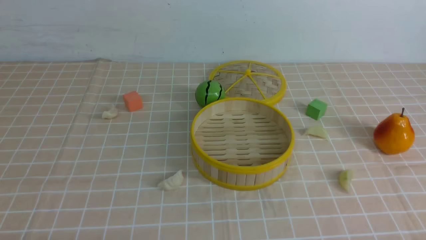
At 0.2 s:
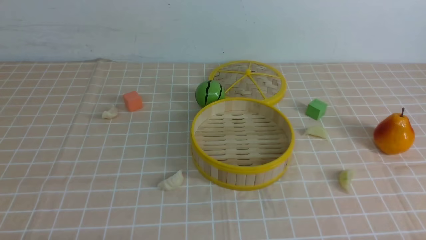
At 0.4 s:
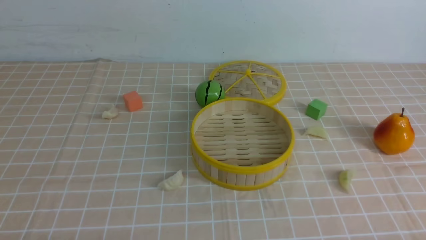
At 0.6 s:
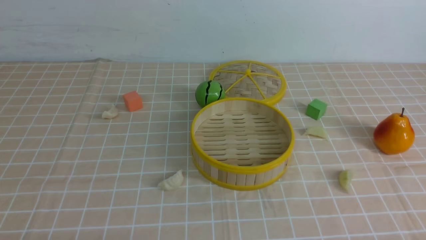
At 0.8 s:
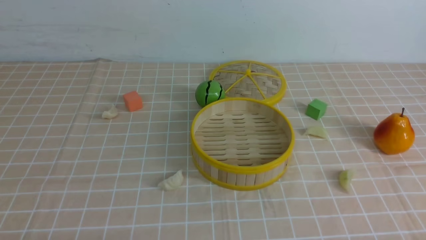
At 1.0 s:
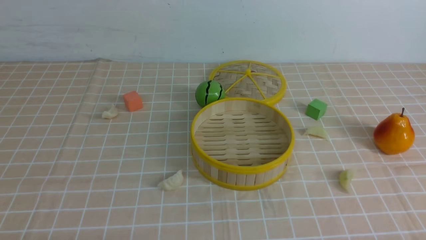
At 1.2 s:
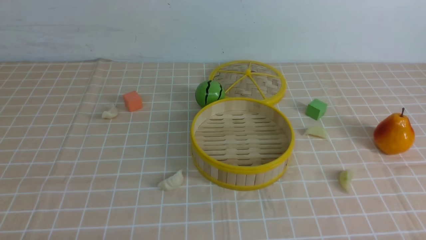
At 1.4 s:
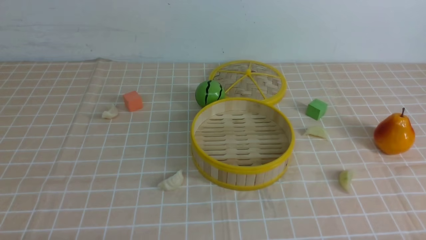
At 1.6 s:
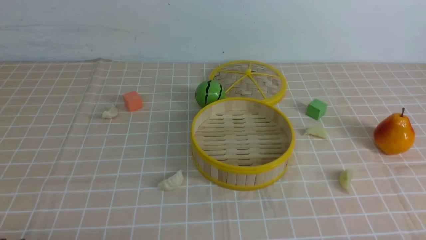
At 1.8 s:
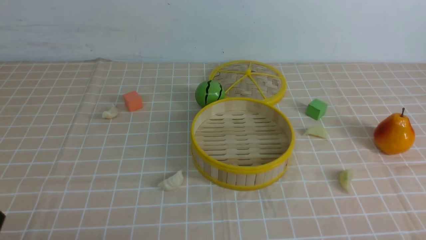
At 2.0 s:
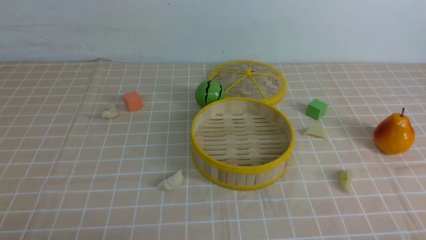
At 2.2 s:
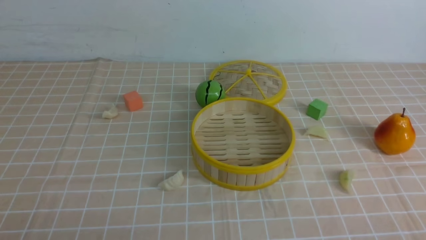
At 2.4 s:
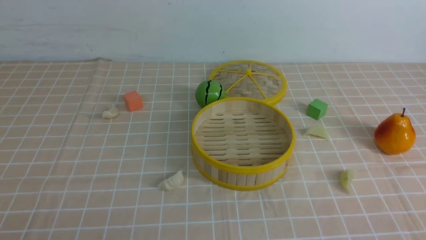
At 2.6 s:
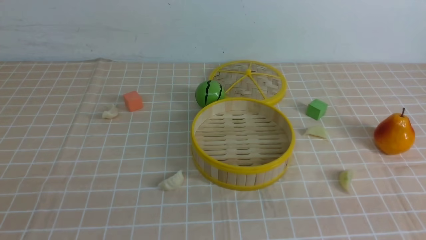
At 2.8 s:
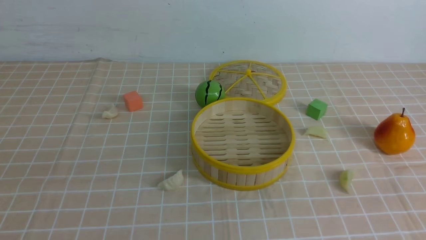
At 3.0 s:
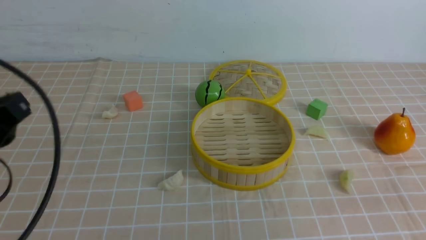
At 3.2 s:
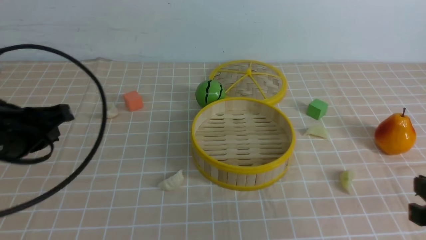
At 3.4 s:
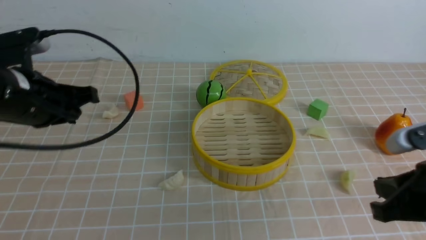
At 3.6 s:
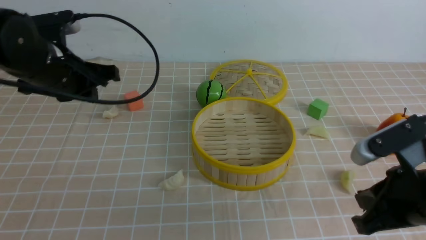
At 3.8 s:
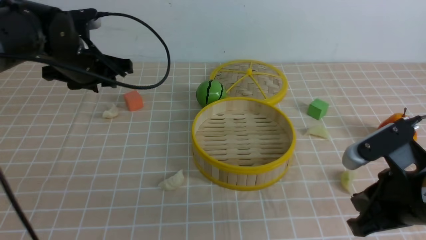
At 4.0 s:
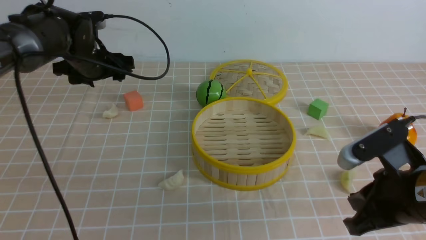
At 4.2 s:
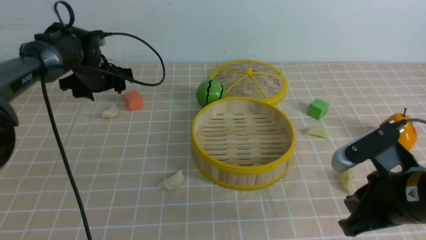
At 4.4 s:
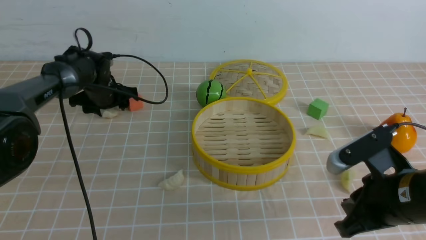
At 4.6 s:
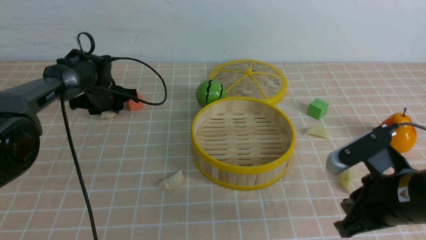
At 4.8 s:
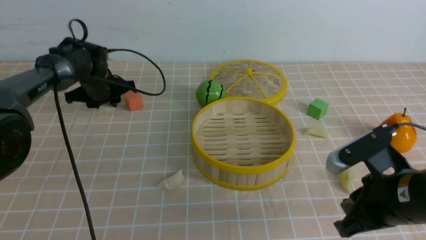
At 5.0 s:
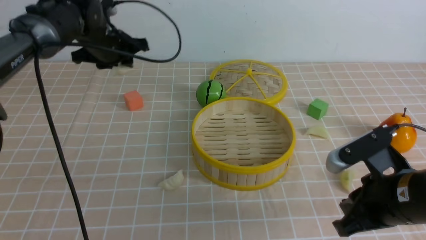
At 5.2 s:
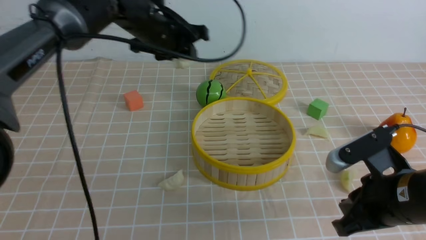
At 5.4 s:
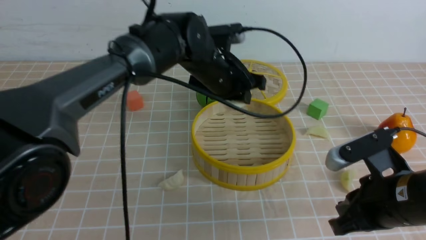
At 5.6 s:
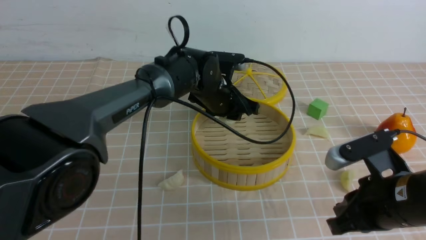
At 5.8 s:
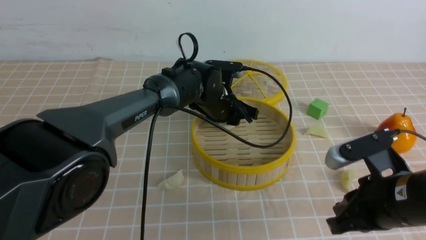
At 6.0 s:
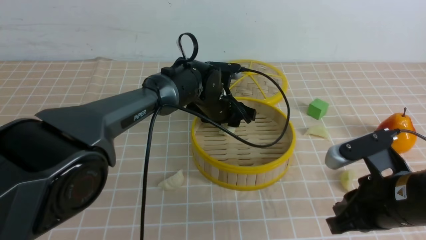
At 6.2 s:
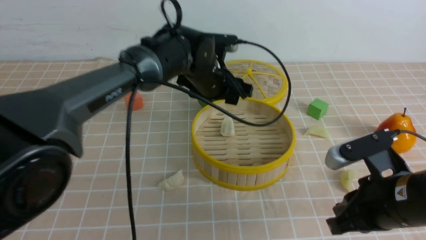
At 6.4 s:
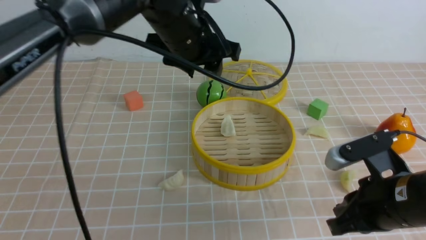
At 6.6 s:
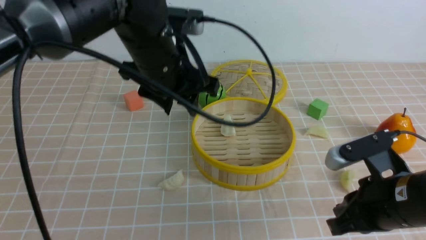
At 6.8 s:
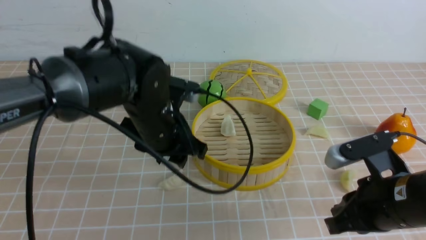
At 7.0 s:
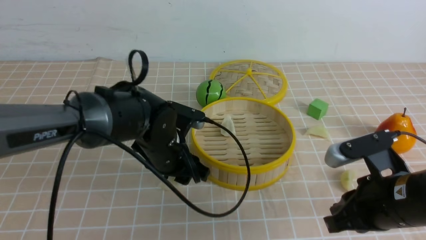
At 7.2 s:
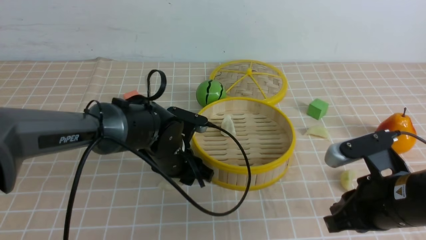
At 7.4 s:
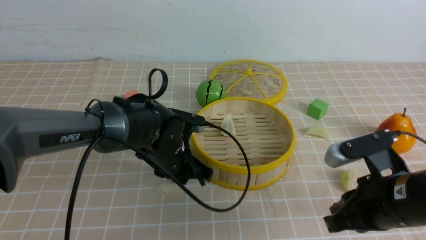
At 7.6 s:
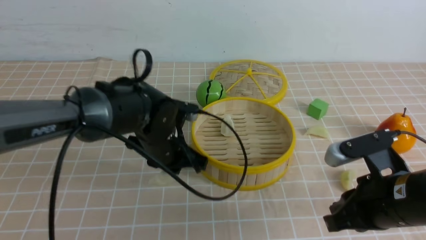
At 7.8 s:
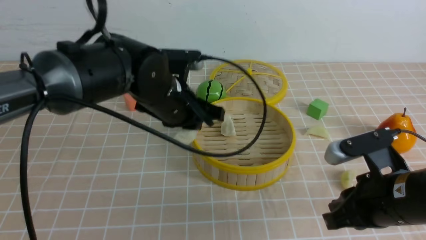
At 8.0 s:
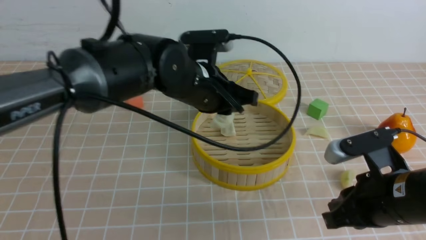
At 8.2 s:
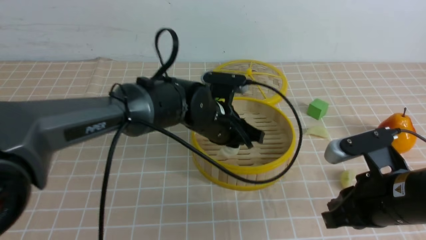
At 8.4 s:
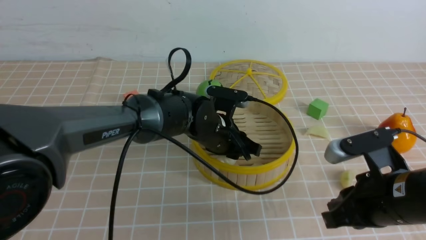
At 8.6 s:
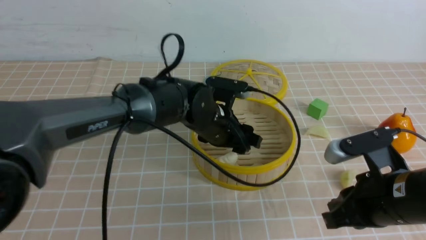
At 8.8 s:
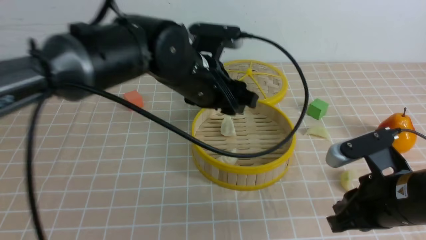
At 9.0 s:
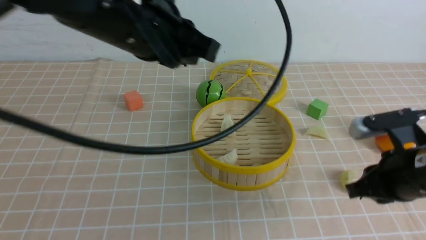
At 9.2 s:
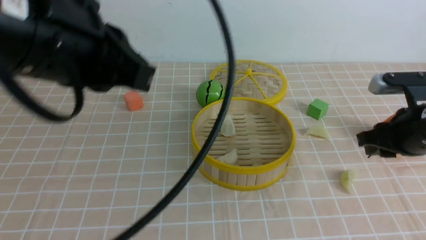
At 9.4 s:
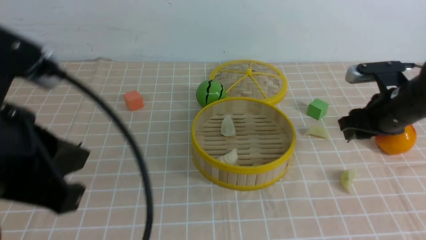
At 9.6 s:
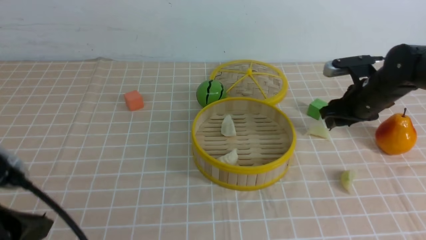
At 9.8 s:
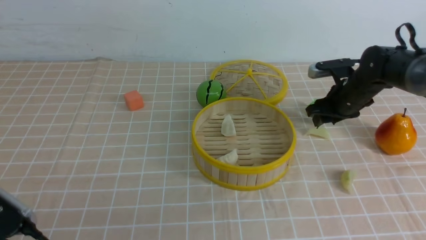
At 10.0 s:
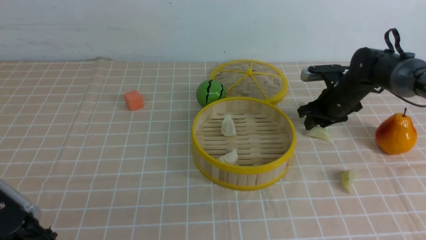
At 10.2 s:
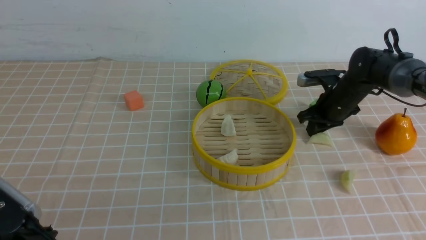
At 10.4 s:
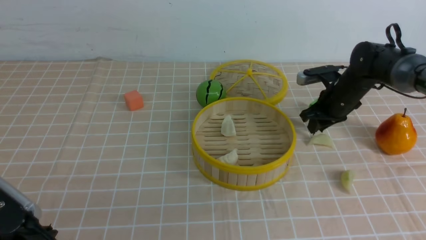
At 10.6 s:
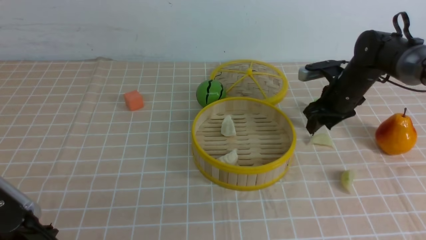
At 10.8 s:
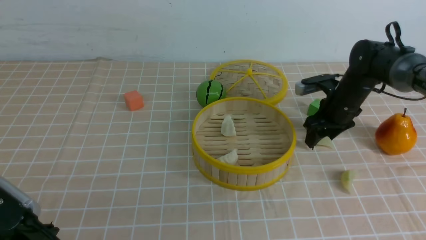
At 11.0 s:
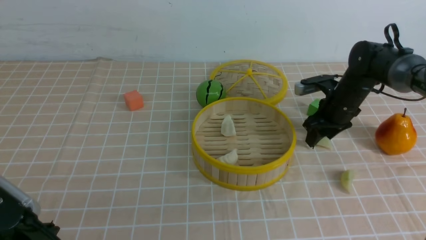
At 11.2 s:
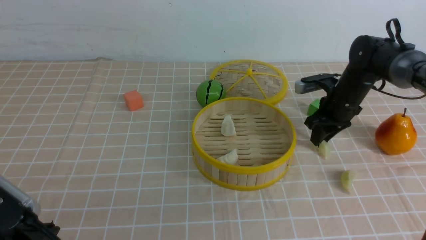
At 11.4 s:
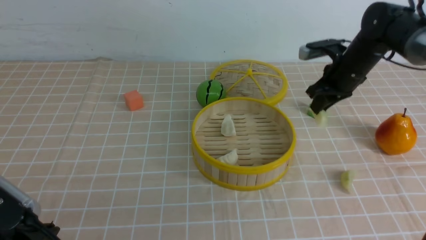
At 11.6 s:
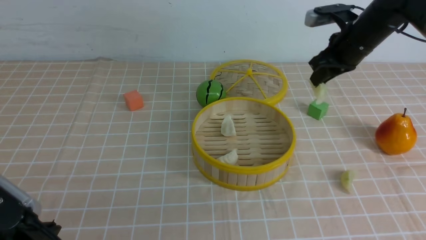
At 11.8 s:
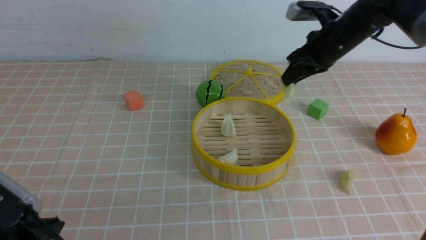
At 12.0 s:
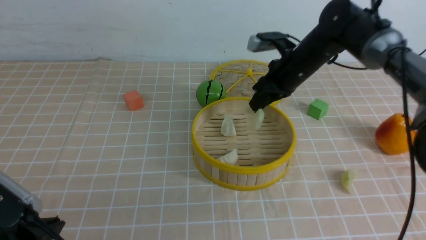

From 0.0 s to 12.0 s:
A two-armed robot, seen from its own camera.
Task of the whole recording: put the dumplings into the steamer on the table with the brown tablecloth.
Step, from 0.0 s to 4.6 s: use the left arm to grab a dumpling.
Step, from 4.8 s to 6.0 s: use the left arm to put the dumpling into the steamer.
Step, from 6.4 s to 7.2 s: use the left arm to grab a dumpling.
Step, from 7.4 s to 8.6 s: use the left arm to put the dumpling into the steamer.
Step, from 8.8 s to 11.0 s: use the right arm to grab a dumpling.
From 1.6 s to 3.0 s: The left gripper heads upward and forward, covering roughly 20 cm, and closes.
From 3.0 s to 4.4 s: The right gripper shifts some 10 cm to the left and forward. The left gripper moves forward and downward, roughly 40 cm, and opens up.
From 4.4 s to 6.0 s: The left gripper travels to the right by some 25 cm.
From 6.0 s to 7.6 s: The left gripper goes up and down, roughly 15 cm each way, reversing 2 times, and closes its fingers.
From 7.6 s to 9.0 s: The left gripper swings up and down, approximately 20 cm each way, with 2 reversals, and opens, then closes once more. Meanwhile the right gripper ends up about 5 cm from where it was.
From 9.0 s to 10.4 s: The right gripper travels forward by approximately 25 cm, while the left gripper is displaced downward, backward and to the left by approximately 25 cm.
From 10.4 s to 12.0 s: The right gripper heads to the left and upward, covering approximately 10 cm.

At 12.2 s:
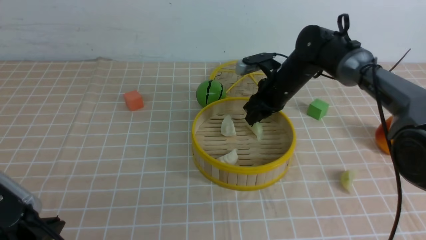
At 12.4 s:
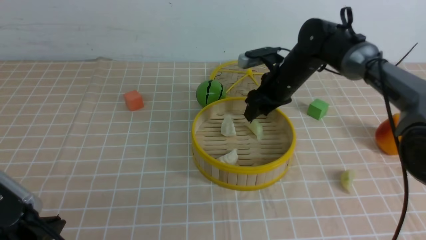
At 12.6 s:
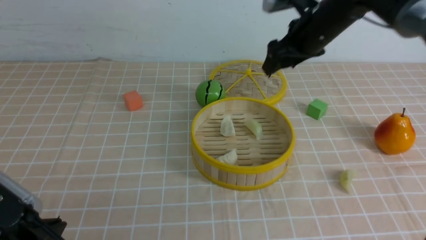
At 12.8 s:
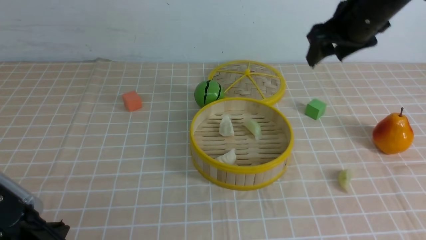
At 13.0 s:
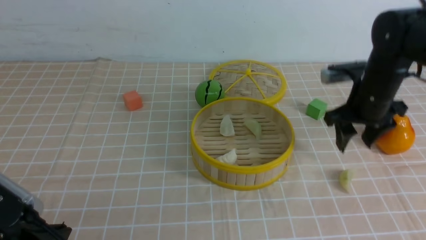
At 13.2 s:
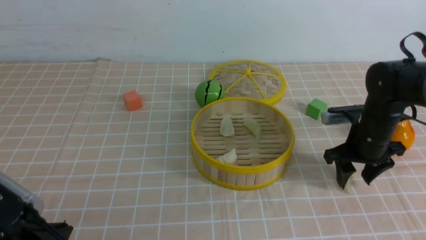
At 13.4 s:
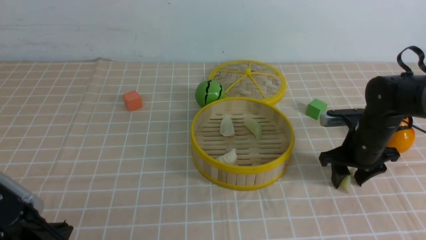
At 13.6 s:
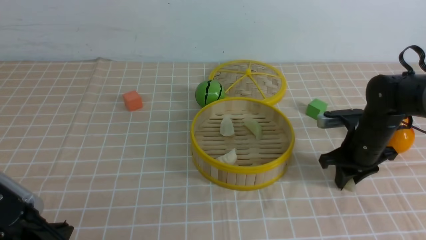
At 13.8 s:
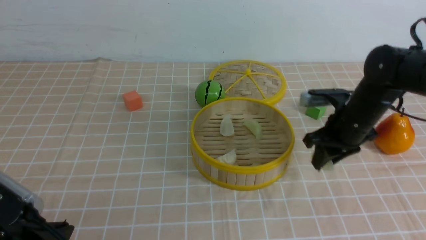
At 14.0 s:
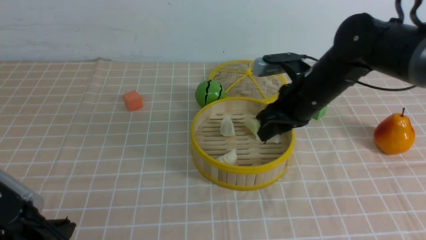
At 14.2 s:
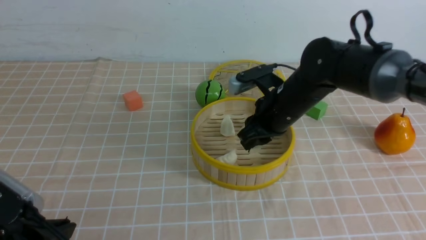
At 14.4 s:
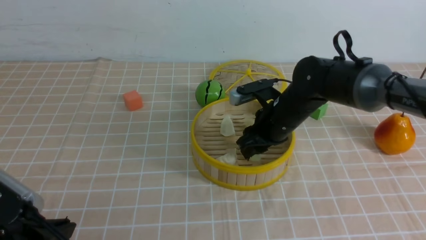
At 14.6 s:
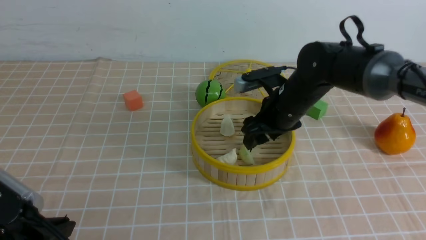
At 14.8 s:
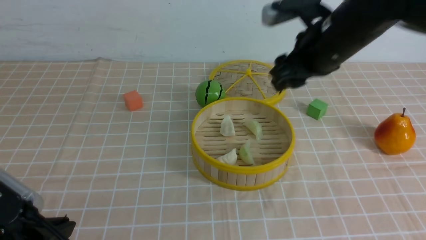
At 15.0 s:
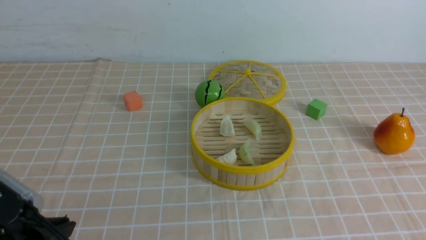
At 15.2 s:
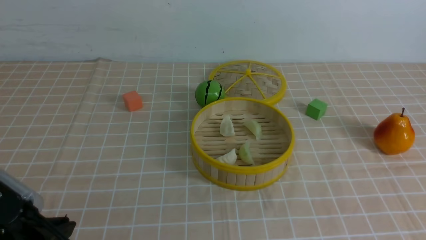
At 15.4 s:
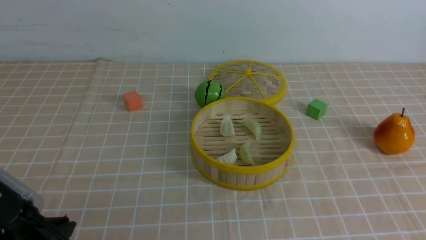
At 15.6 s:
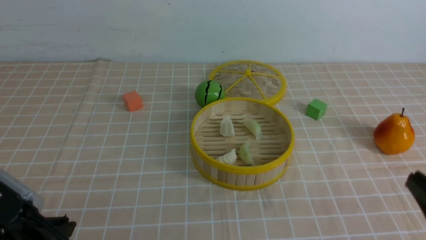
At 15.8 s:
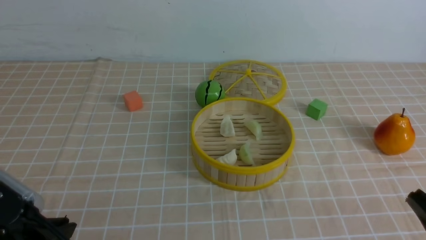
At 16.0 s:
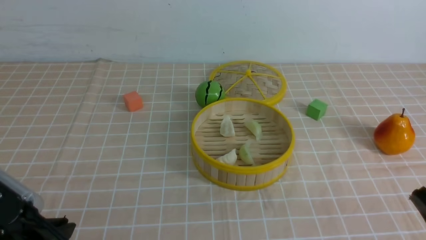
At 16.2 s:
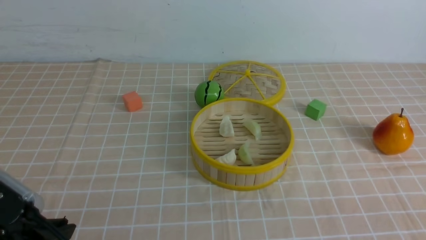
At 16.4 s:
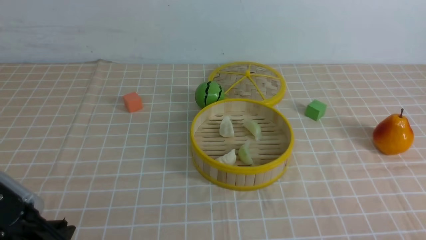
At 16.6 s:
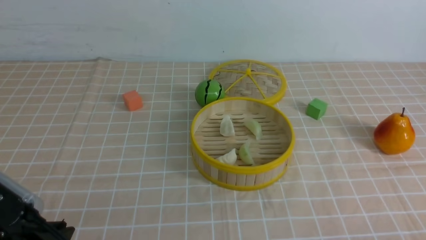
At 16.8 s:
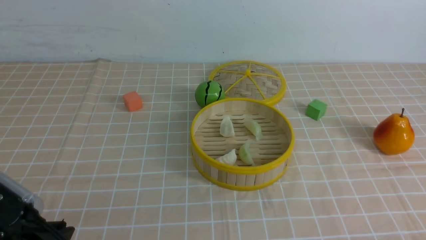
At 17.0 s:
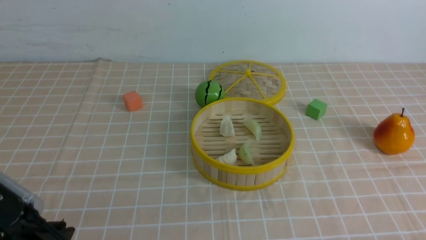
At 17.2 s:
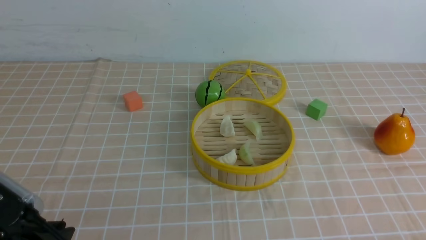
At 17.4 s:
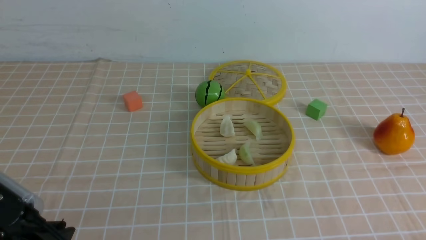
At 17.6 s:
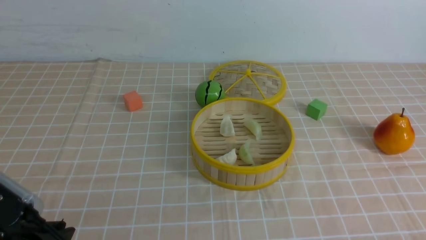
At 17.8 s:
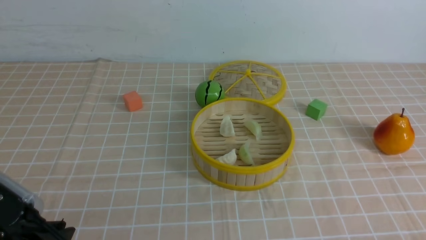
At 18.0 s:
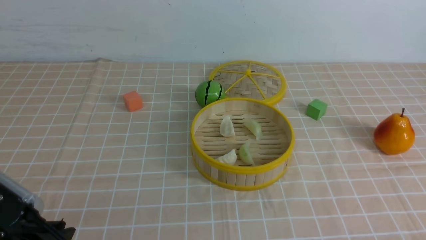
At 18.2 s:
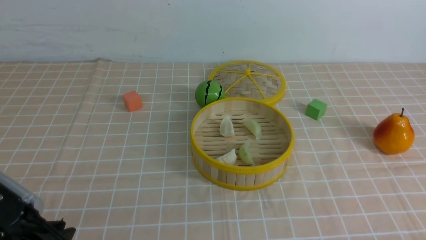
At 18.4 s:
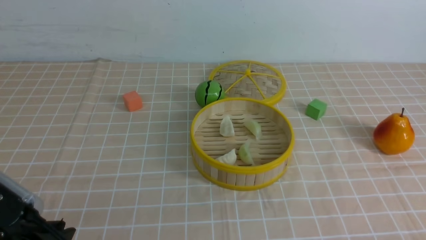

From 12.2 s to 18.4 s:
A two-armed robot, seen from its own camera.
Task of the whole recording: put the dumplings into the steamer on the table with the brown tablecloth.
Step, from 12.6 s to 13.4 s: use the right arm to grab a dumpling.
Step, from 13.6 s to 14.8 s: use the right arm to put the dumpling into the steamer.
From 12.2 s to 13.8 s: The right gripper goes up and down, some 15 cm each way, reversing 2 times, and opens, then closes again.
From 13.8 s to 15.4 s: The right gripper is displaced backward and upward by some 30 cm, and closes its fingers.
